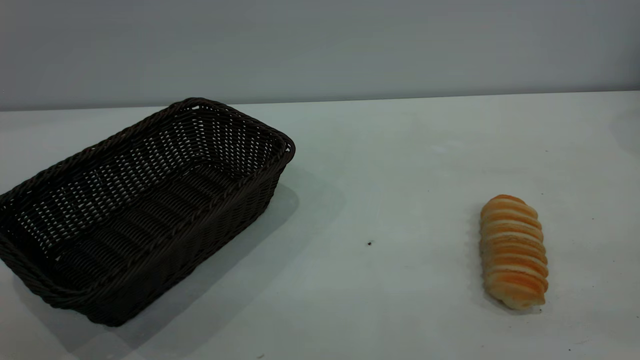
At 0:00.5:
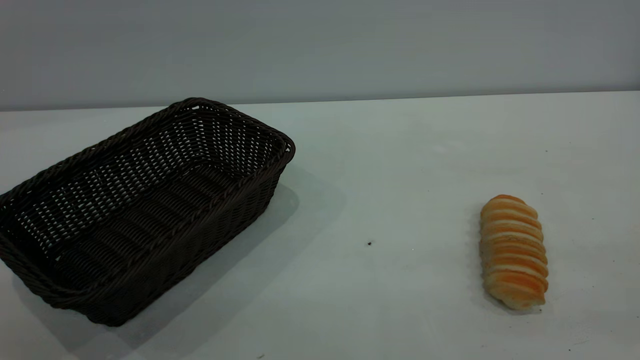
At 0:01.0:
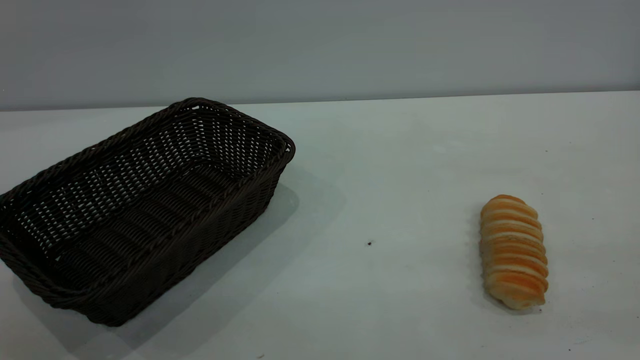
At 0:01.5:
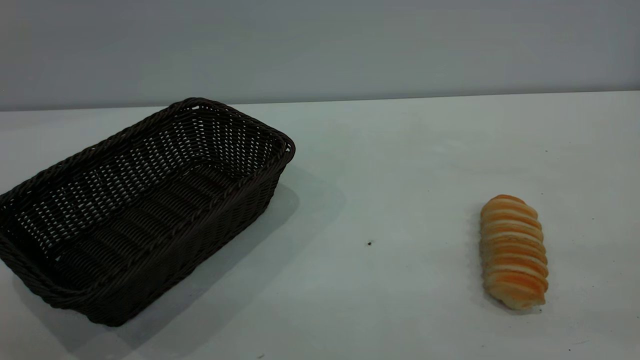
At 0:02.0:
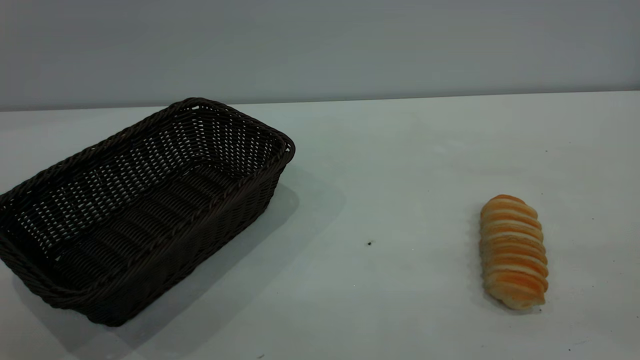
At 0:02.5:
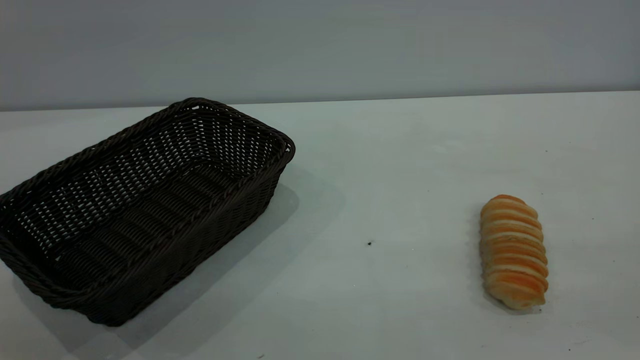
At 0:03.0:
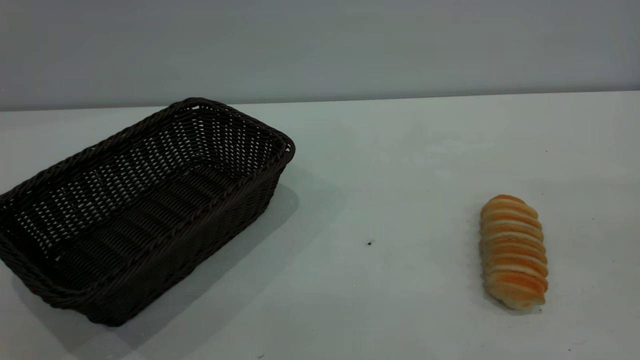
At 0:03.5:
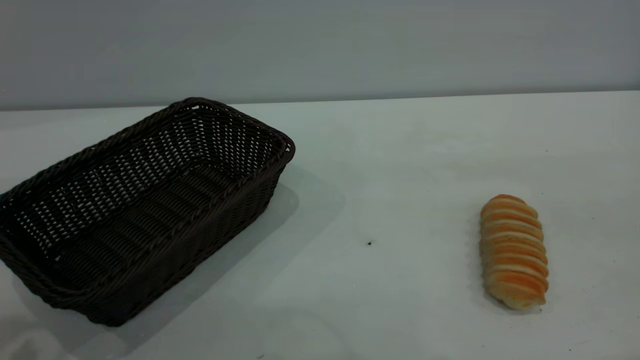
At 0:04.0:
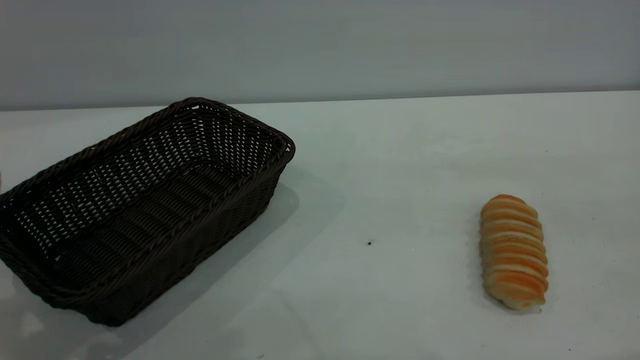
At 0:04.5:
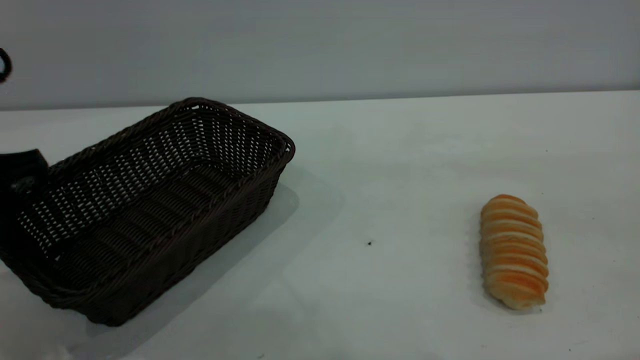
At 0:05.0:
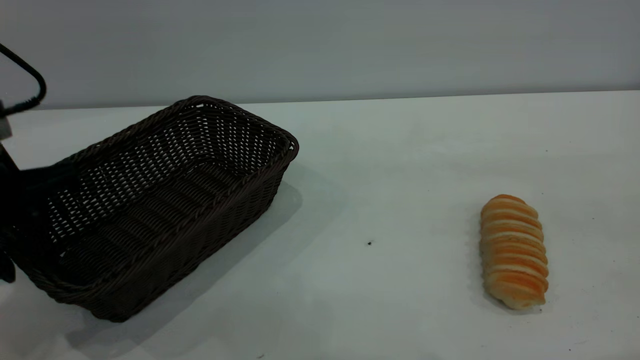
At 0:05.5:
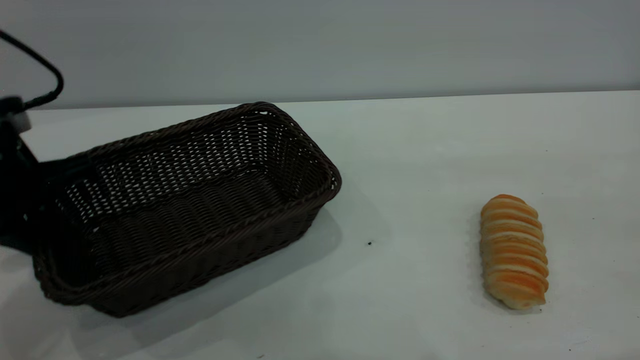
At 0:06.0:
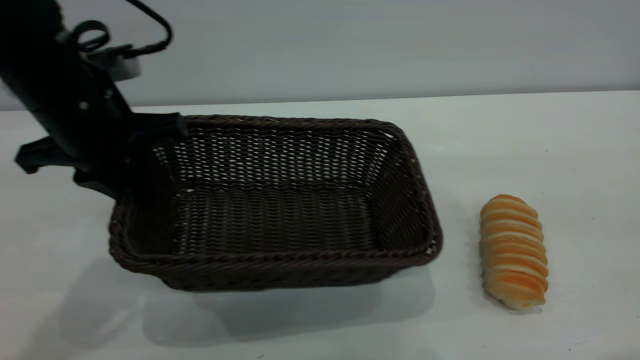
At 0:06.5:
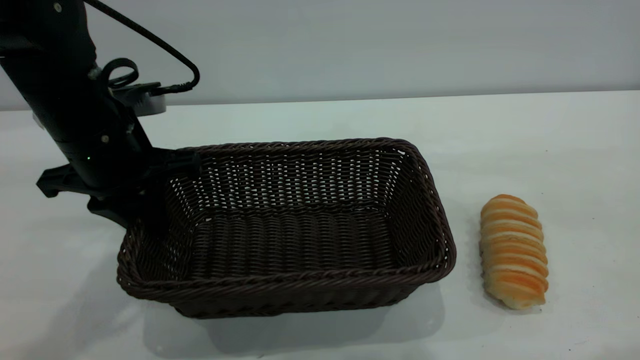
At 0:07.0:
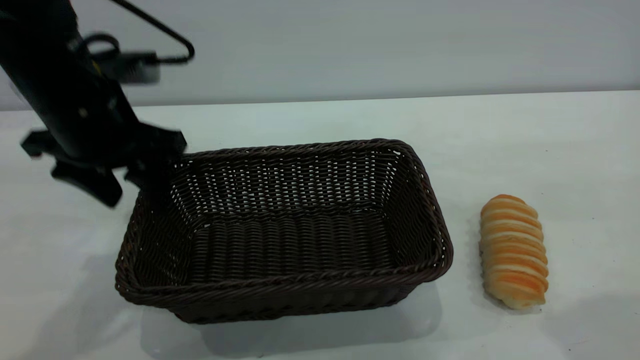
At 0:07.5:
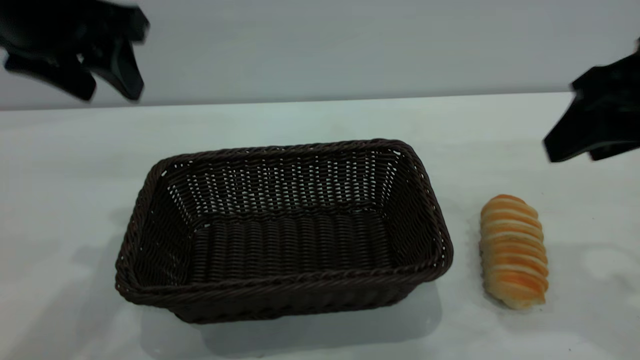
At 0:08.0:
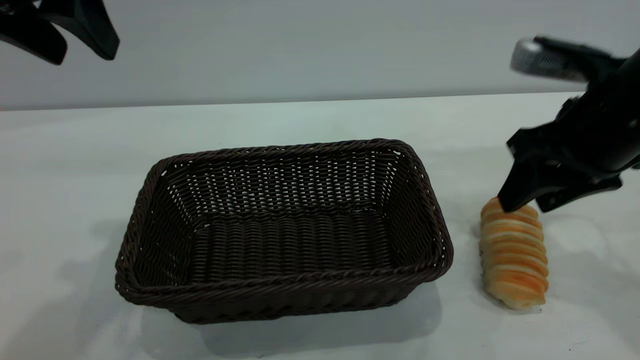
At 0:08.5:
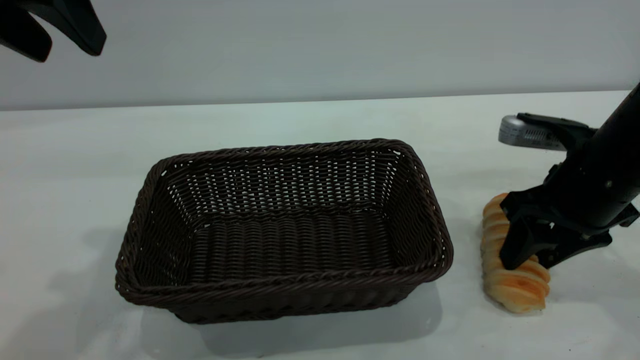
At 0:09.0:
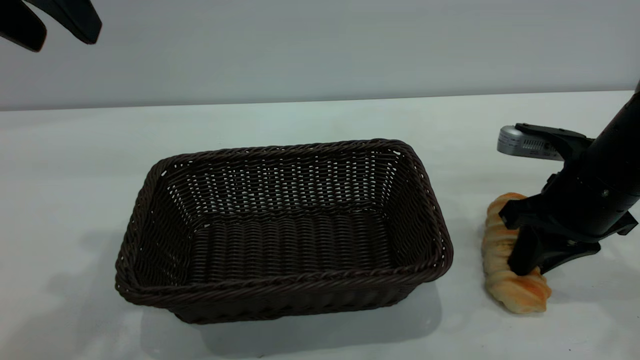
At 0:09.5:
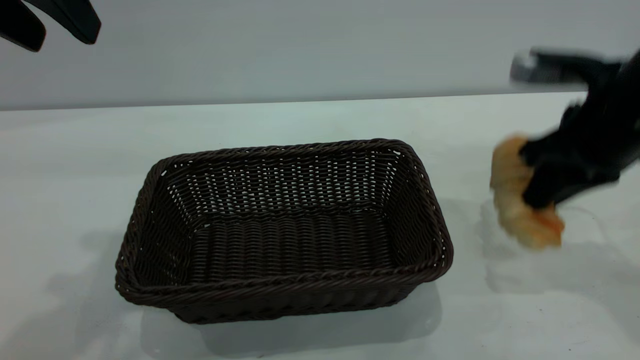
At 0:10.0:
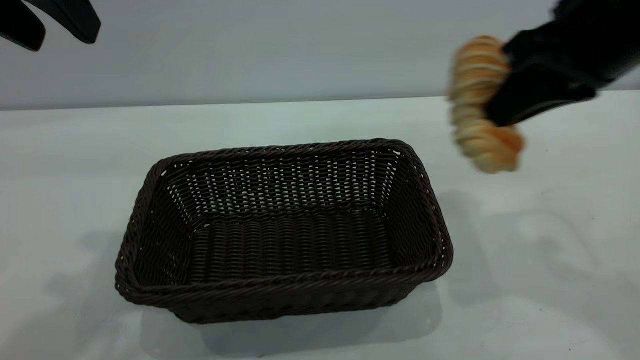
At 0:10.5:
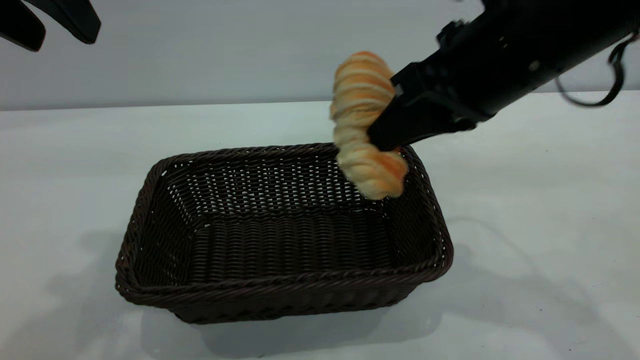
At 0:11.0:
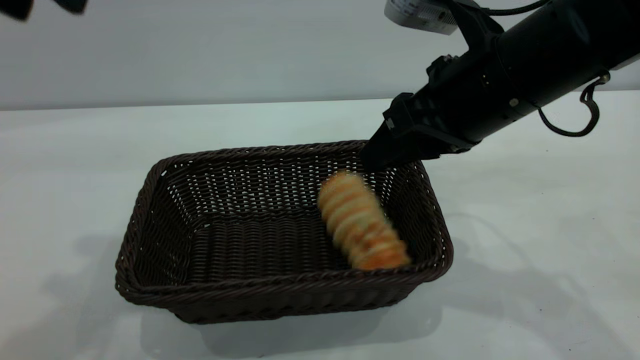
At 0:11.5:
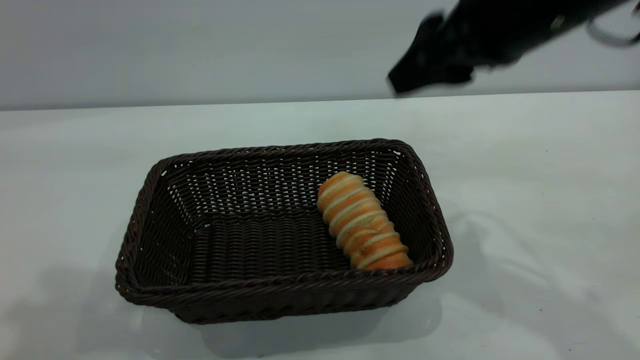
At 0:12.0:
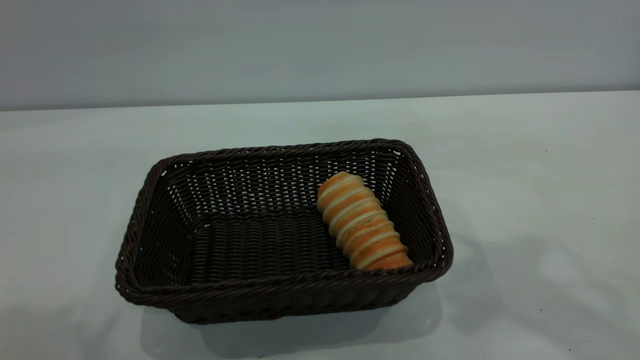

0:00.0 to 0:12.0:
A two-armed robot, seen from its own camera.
Task of the whole recording: One hand grasps the black basket and places it in the middle of the table, while the other hand picks up the long bread and puts it into the black basket.
Step, 0:00.0 to 0:07.0: Move the basket to the center of view.
Step, 0:10.0 to 0:11.5: place the bread into the basket.
0:04.0 to 0:06.0: The left gripper moves forward and to the right, about 15 cm, and closes.
0:06.0 to 0:08.0: The right gripper goes approximately 25 cm downward and forward; the left gripper moves upward, about 15 cm, and opens its fingers.
0:08.0 to 0:10.0: The right gripper goes some 10 cm upward, and closes.
0:10.0 to 0:12.0: The left gripper moves backward and upward, some 15 cm. Meanwhile the right gripper goes roughly 10 cm upward, and opens.

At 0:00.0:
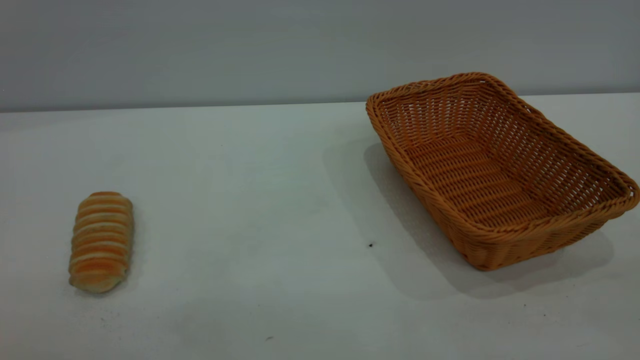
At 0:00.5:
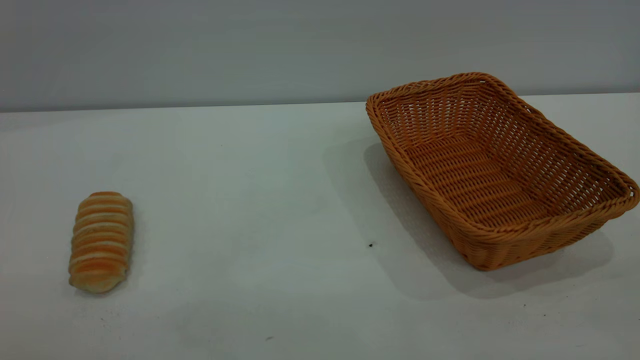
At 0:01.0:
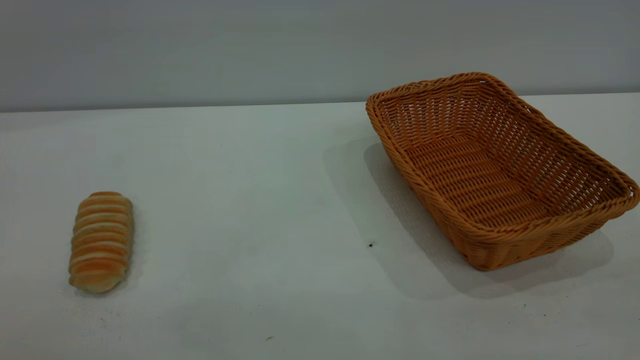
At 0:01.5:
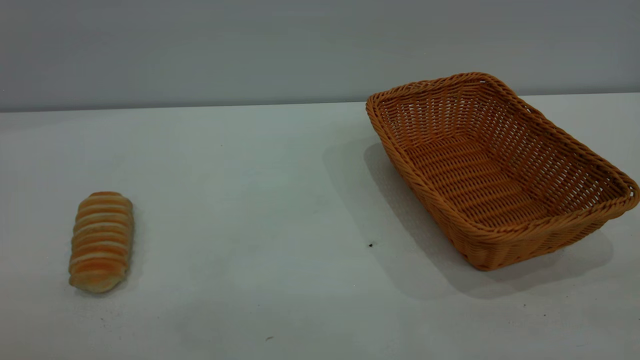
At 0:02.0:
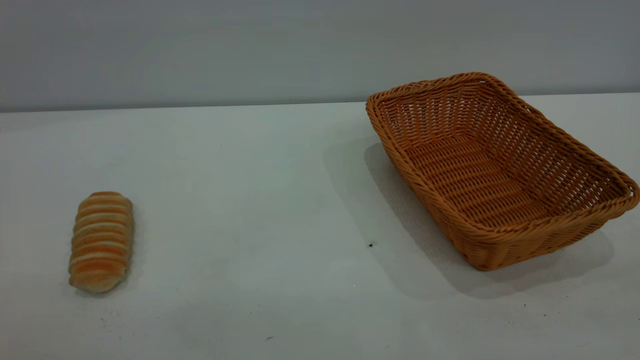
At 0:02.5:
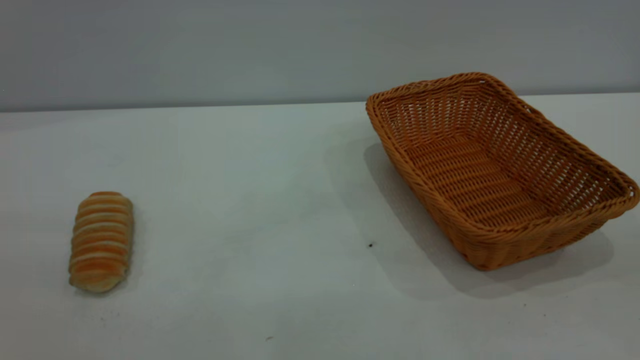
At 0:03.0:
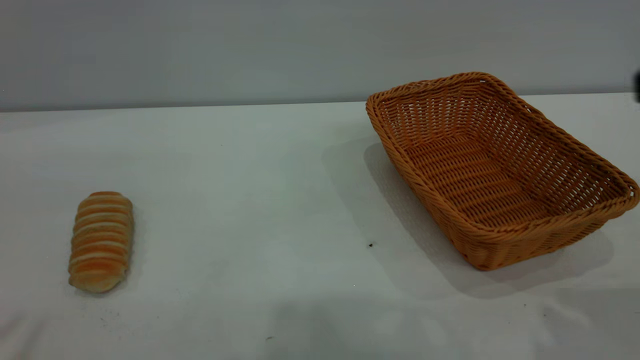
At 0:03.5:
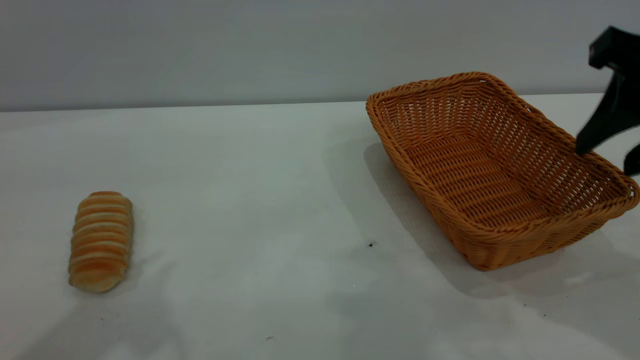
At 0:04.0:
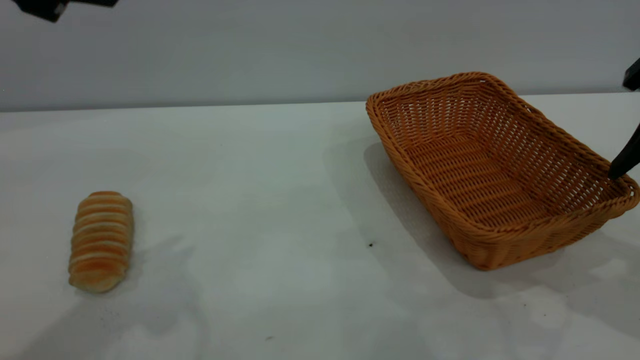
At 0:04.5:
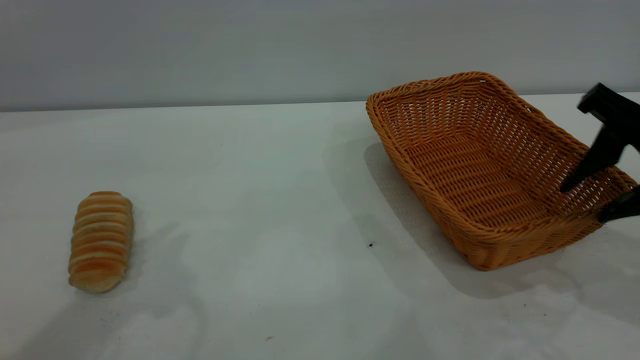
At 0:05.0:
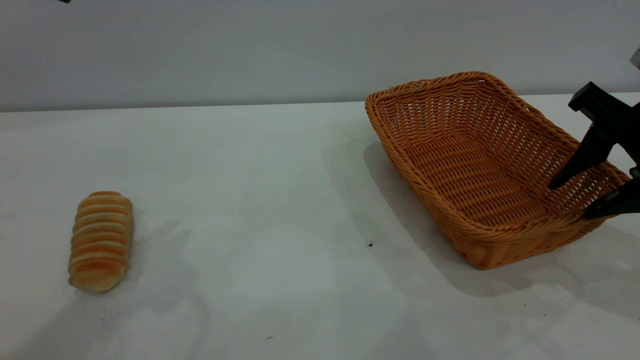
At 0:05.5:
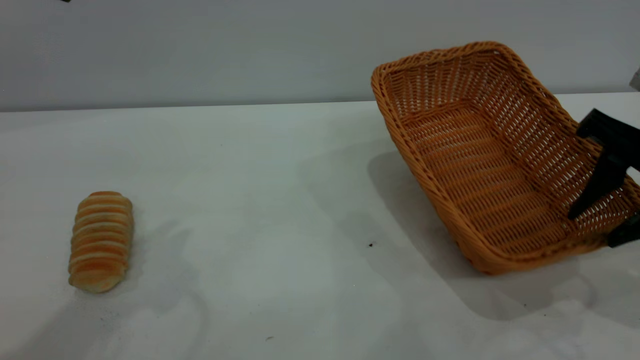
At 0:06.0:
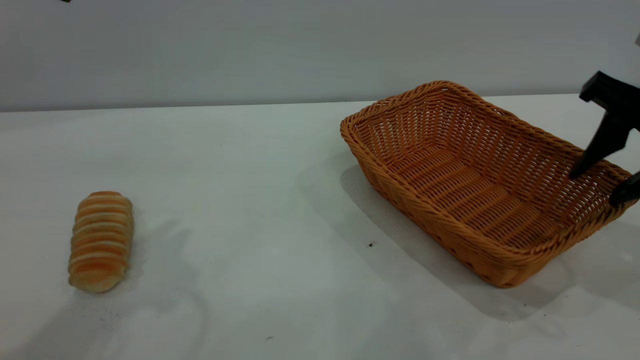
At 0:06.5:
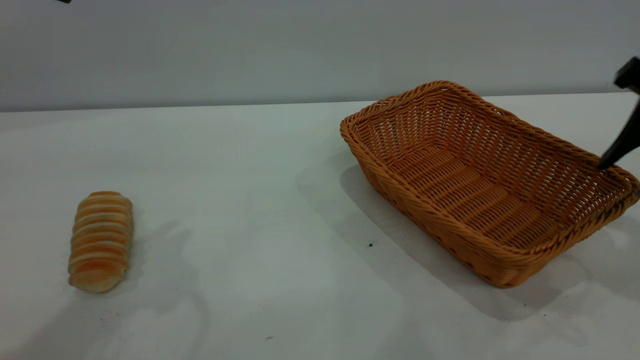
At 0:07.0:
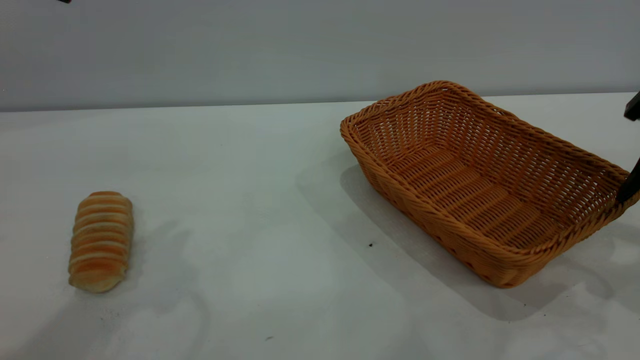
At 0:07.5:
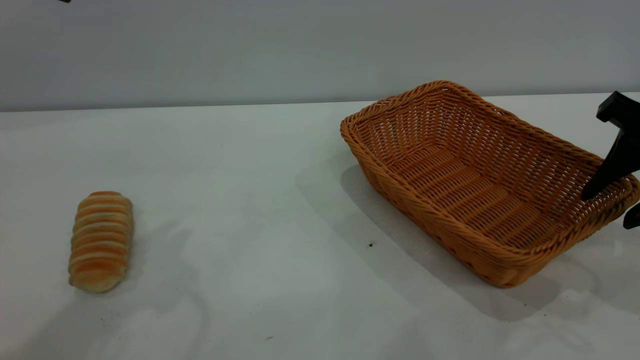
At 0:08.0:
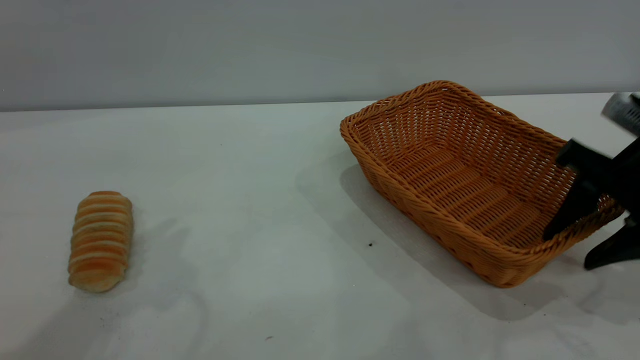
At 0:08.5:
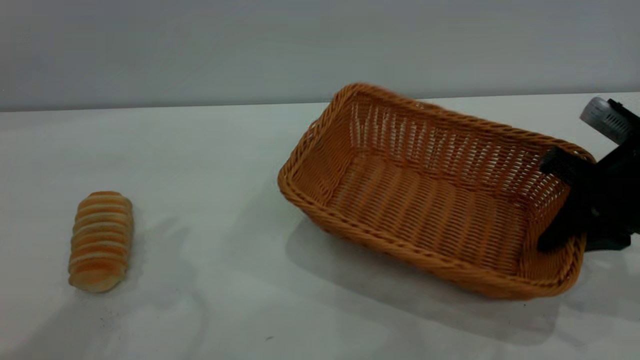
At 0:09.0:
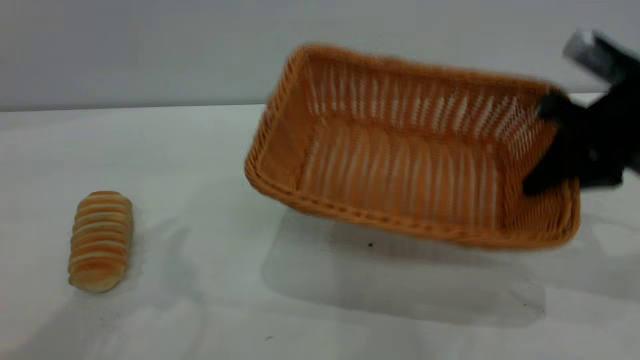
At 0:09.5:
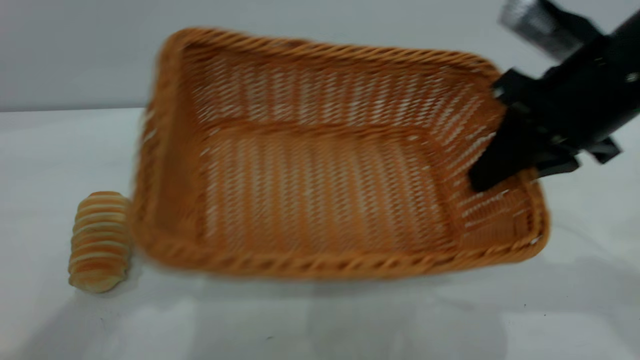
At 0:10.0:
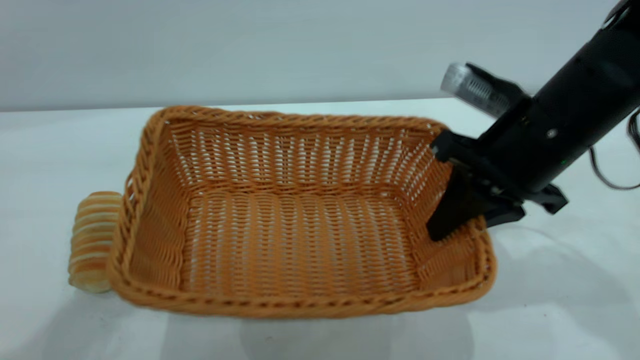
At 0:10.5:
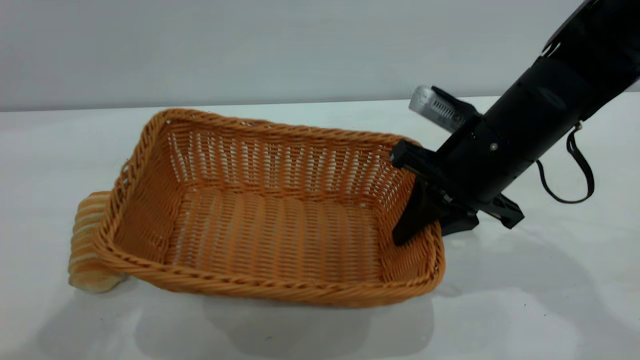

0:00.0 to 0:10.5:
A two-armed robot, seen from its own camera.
Task of the whole recording: One hand grasps the yellow basket and places it in the middle of the table, while the other hand picks up the long bread and puts it into the yellow basket.
0:00.0 to 0:02.0: Both grippers stay about where they are.
0:04.0 to 0:06.5: The grippers stay close to where they were, moving slightly.
0:06.5 to 0:08.5: The right gripper shifts approximately 10 cm downward, and closes up.
0:08.5 to 0:10.5: The right gripper is displaced to the left by about 15 cm.
